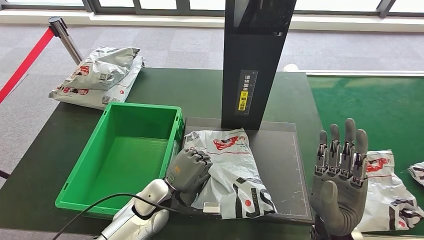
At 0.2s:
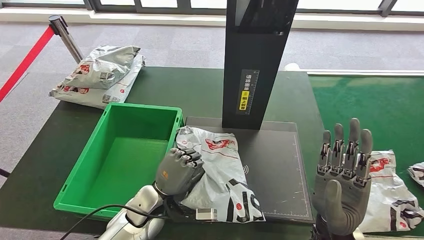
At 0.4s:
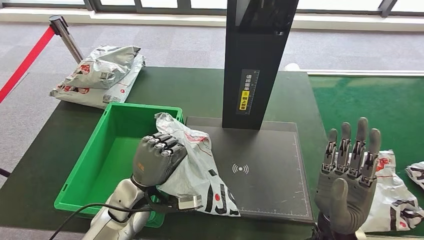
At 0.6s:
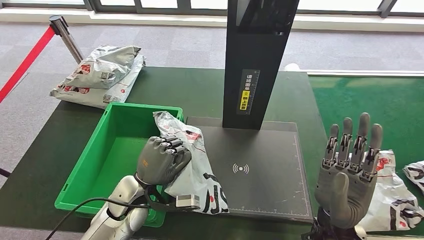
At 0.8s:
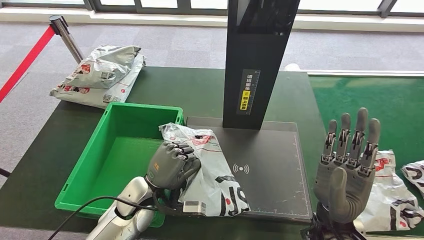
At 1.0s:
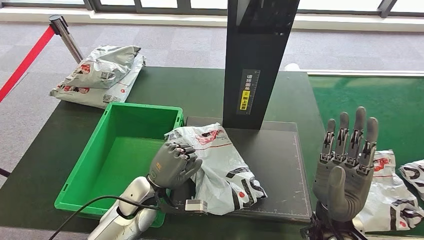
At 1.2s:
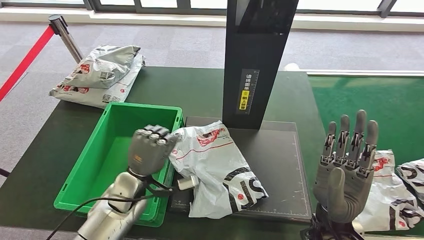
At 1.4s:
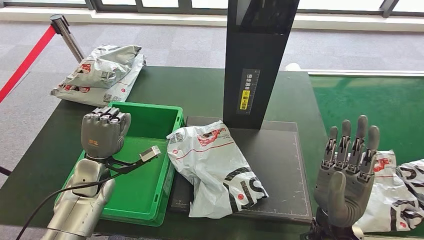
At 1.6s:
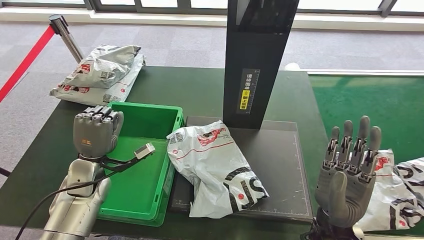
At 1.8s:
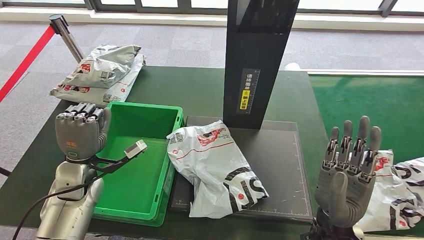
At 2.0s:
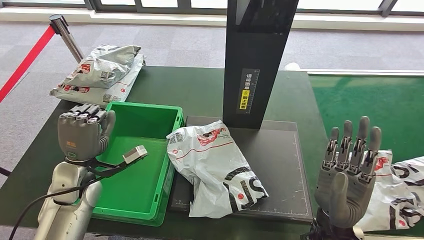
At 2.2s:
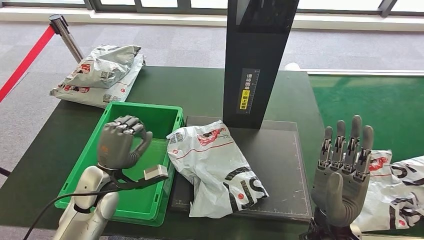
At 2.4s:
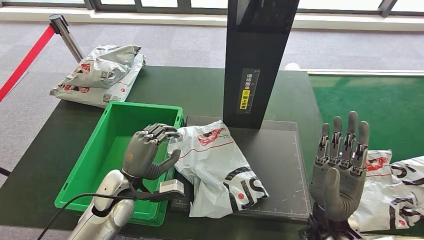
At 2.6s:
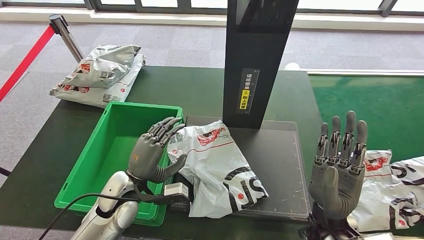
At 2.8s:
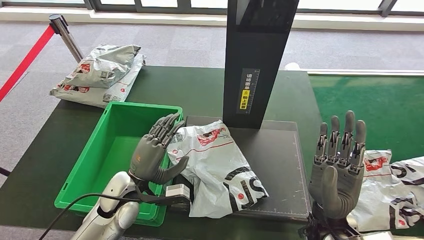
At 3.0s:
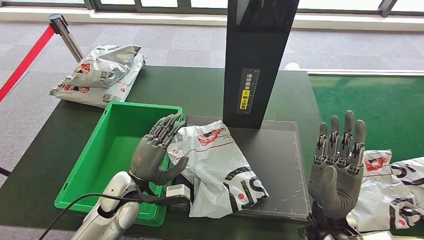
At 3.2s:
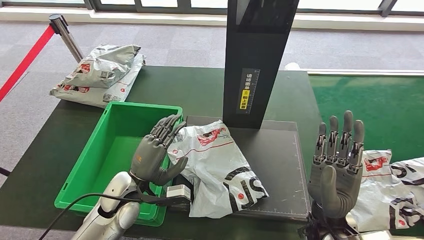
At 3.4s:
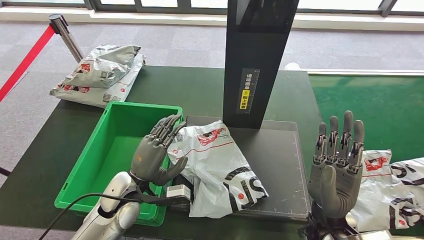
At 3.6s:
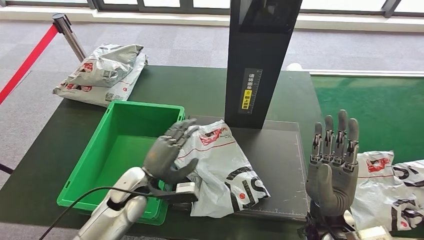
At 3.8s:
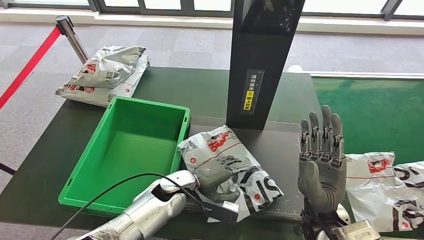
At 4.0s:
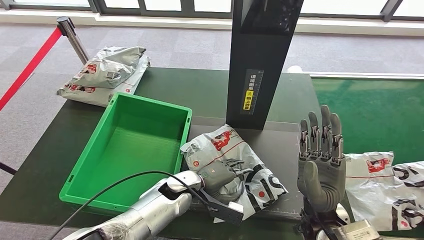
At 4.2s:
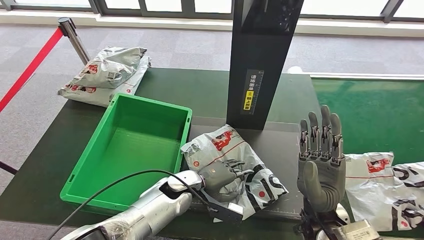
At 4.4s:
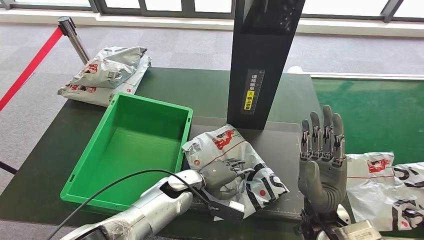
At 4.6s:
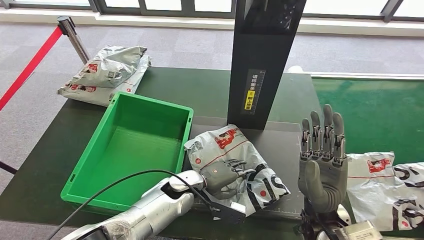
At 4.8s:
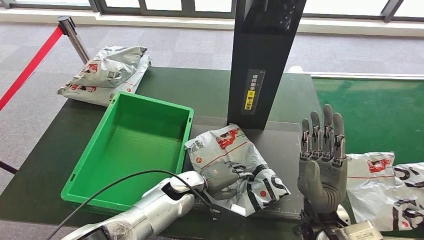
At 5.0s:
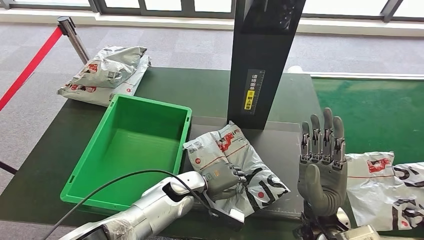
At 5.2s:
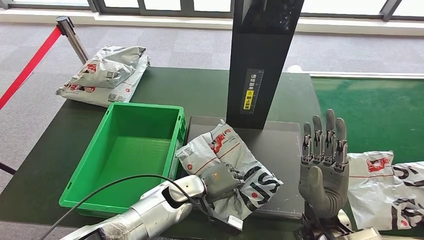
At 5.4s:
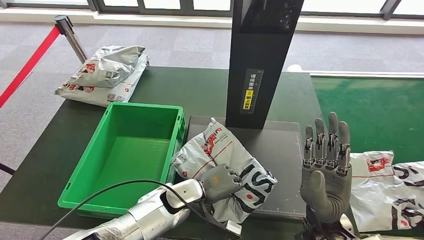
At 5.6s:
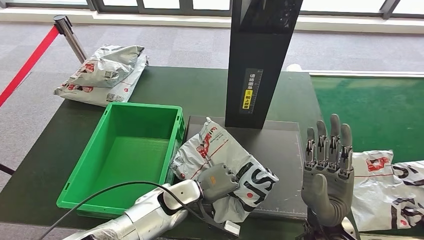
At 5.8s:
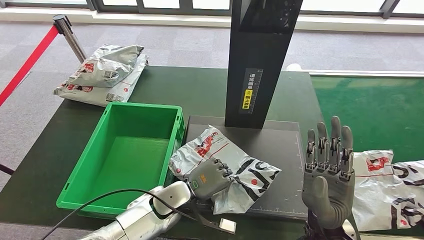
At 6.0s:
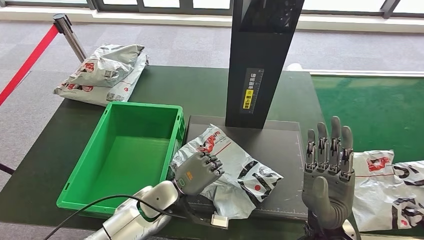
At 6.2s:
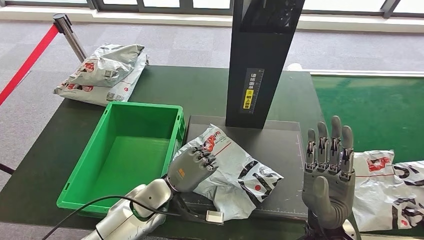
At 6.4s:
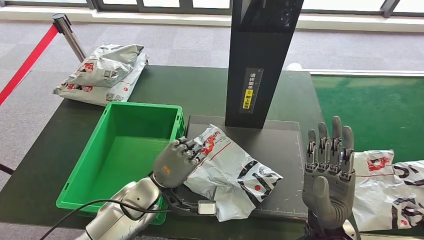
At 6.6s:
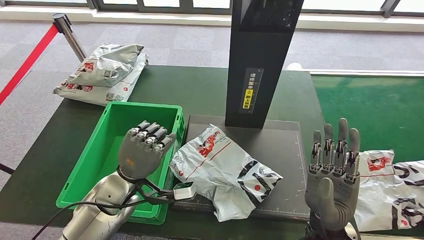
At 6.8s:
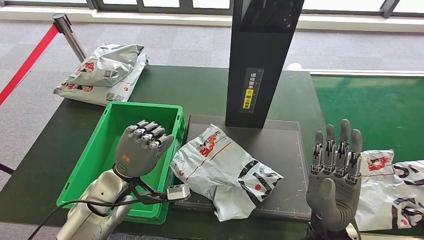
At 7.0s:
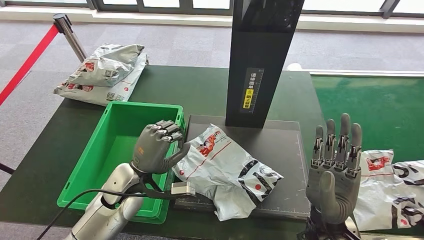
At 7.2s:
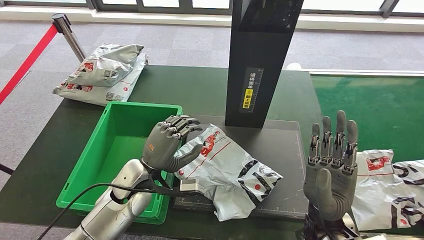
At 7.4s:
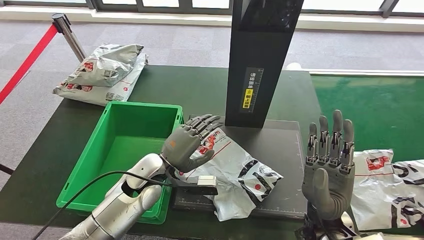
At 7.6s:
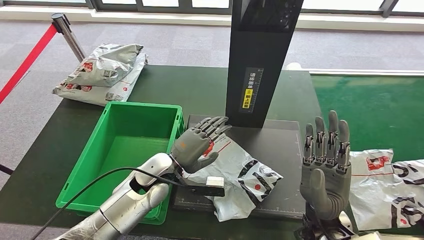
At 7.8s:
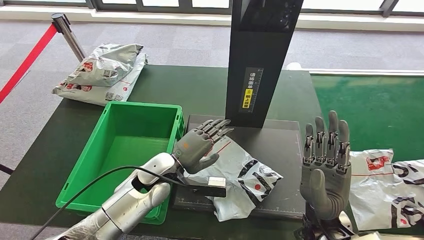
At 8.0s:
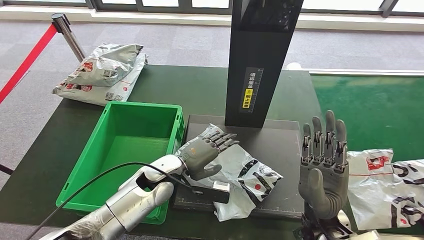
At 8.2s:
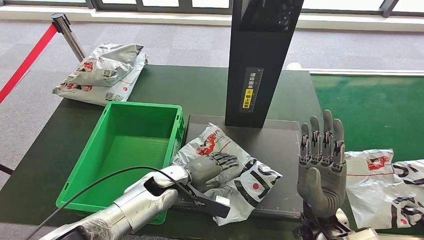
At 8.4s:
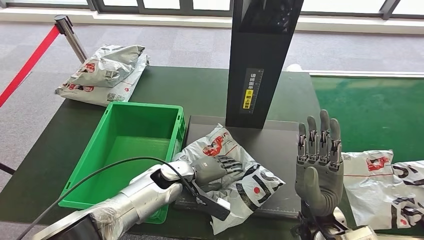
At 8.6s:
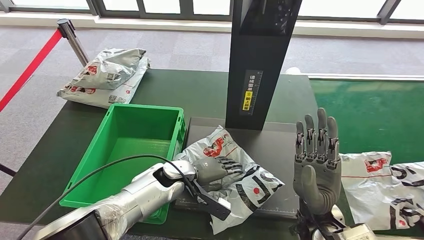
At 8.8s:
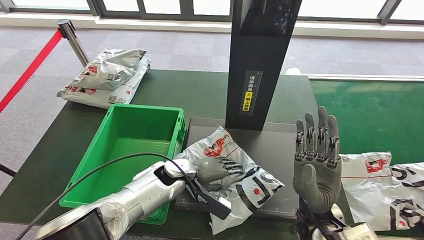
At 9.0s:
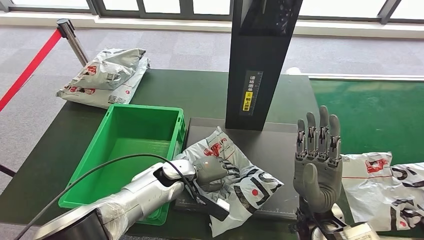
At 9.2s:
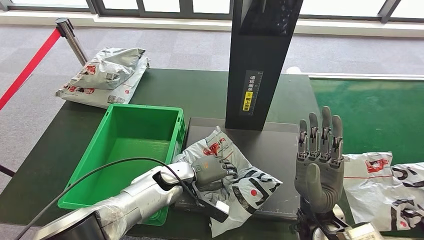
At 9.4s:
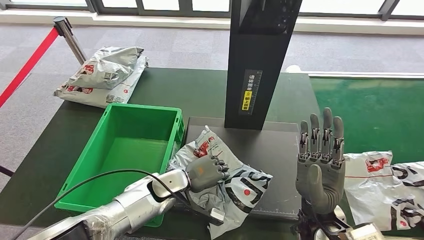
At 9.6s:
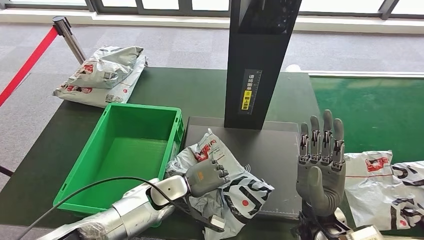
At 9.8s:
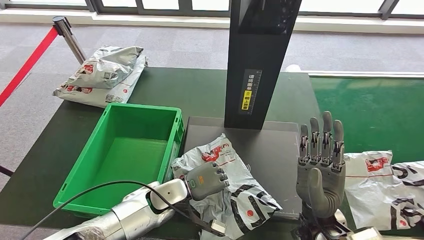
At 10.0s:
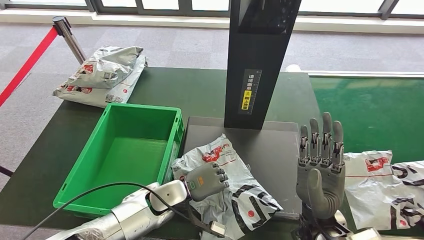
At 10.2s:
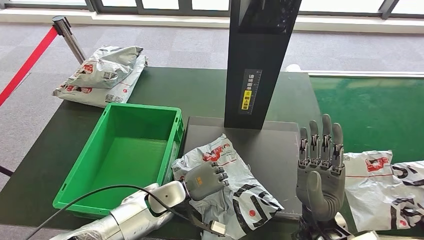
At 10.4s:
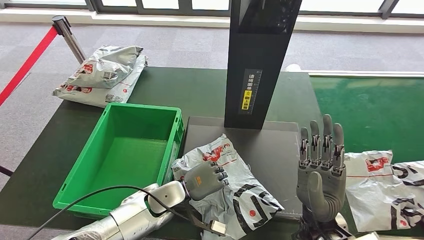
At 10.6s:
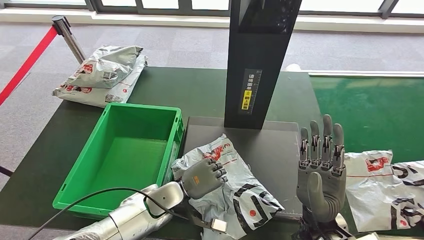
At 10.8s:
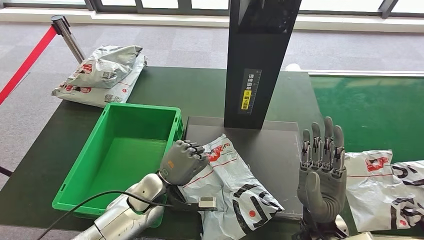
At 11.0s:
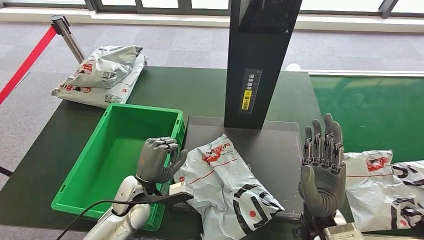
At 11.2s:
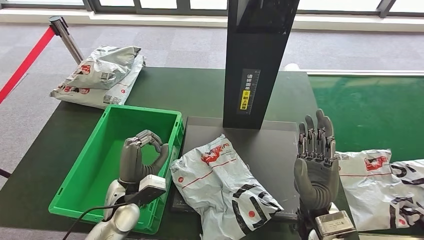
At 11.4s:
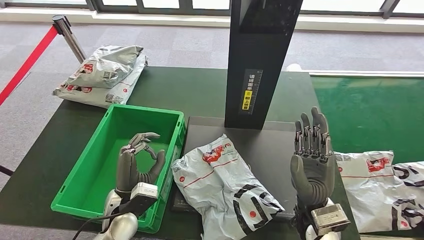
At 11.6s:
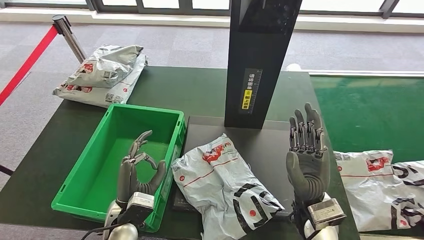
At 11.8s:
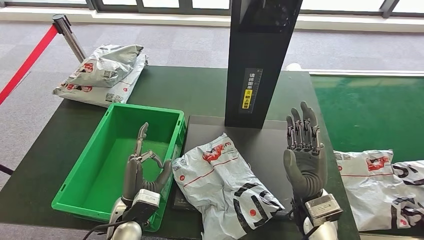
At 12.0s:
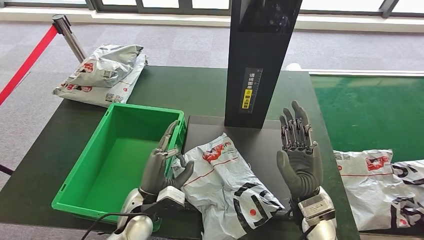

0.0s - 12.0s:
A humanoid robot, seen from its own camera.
1.6s - 3.0s: The left hand heads to the right, covering some 10 cm.
6.0s - 7.6s: The left hand travels to the left and back again, approximately 10 cm each way.

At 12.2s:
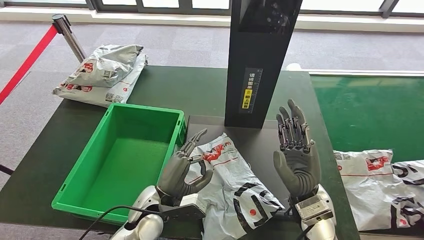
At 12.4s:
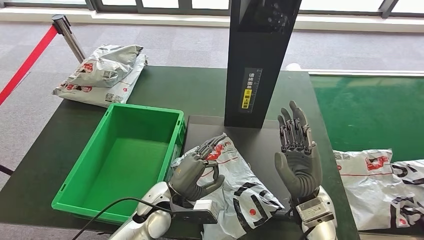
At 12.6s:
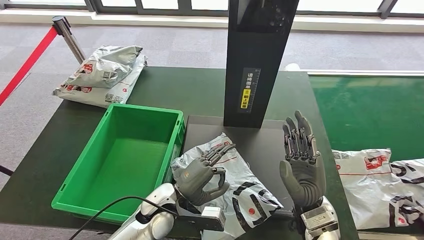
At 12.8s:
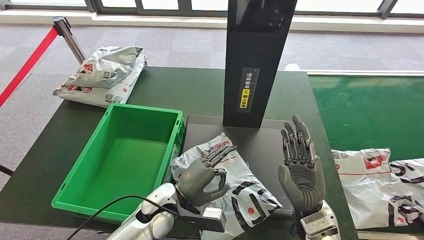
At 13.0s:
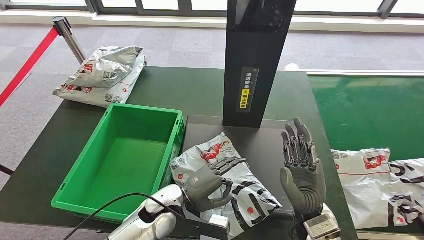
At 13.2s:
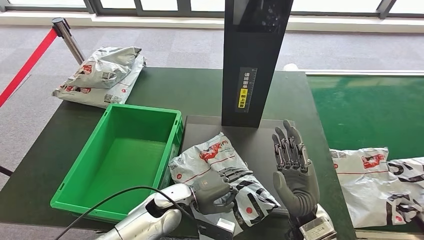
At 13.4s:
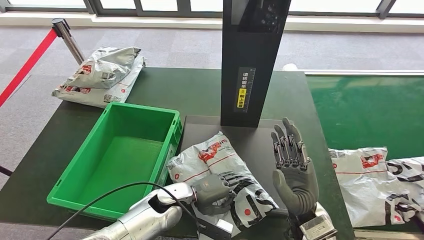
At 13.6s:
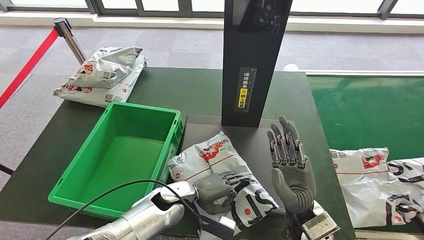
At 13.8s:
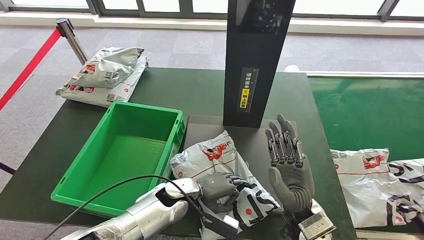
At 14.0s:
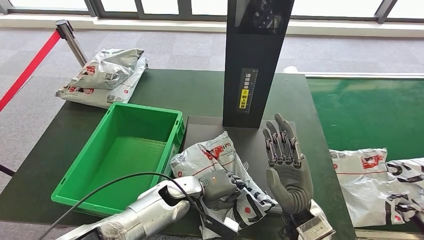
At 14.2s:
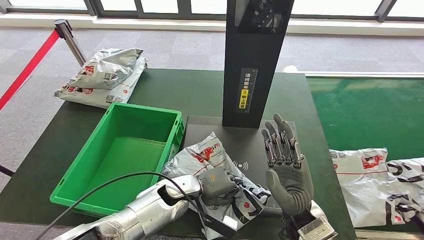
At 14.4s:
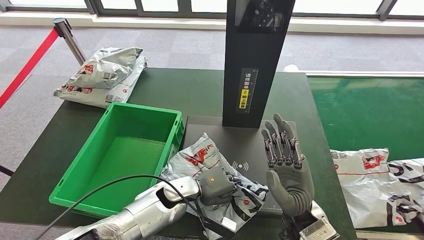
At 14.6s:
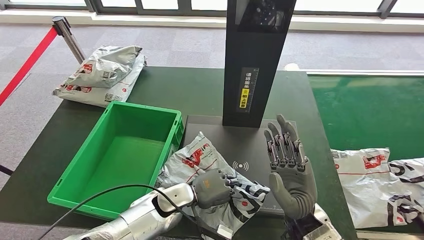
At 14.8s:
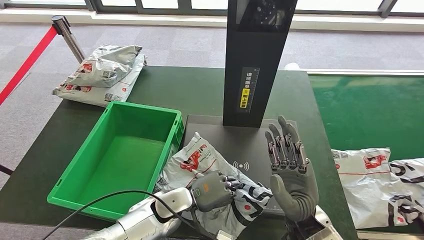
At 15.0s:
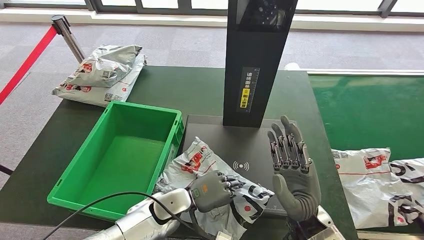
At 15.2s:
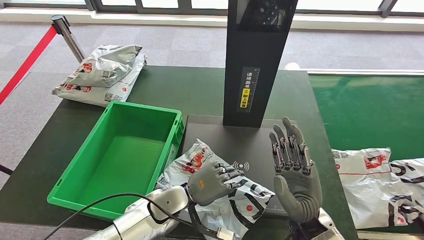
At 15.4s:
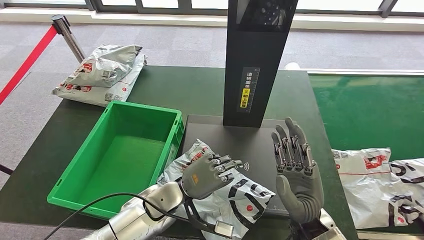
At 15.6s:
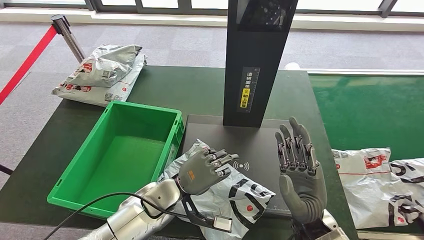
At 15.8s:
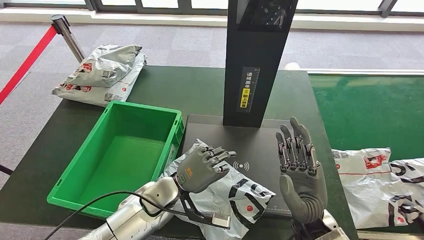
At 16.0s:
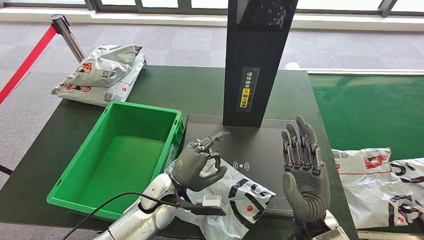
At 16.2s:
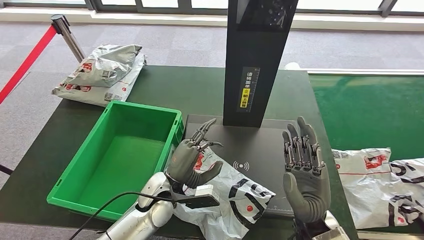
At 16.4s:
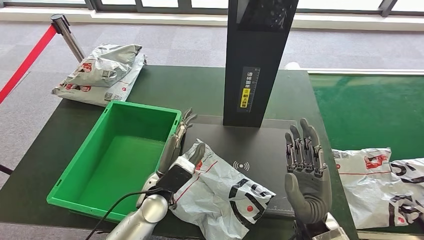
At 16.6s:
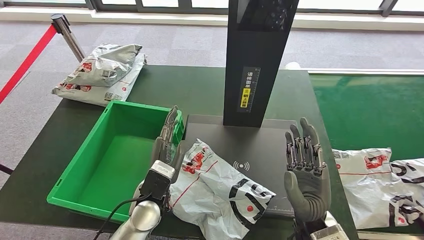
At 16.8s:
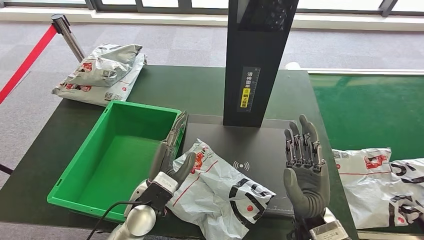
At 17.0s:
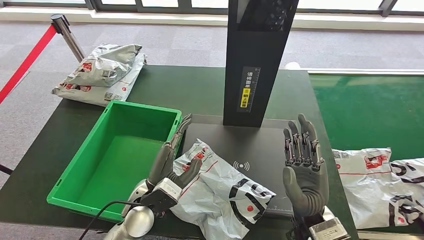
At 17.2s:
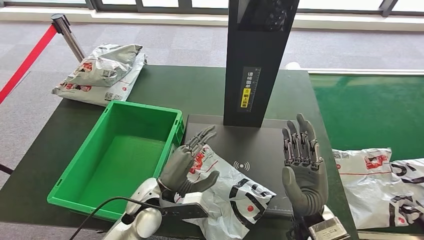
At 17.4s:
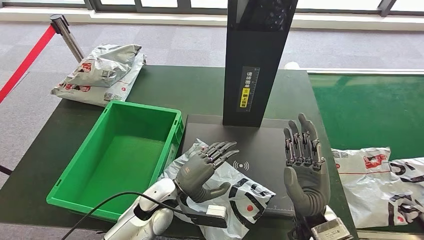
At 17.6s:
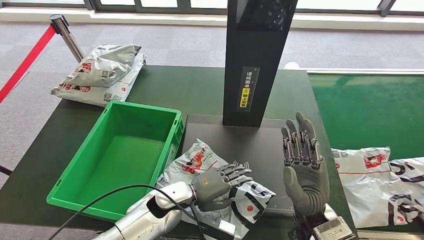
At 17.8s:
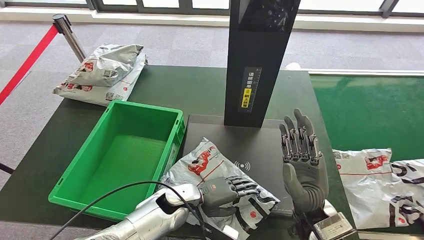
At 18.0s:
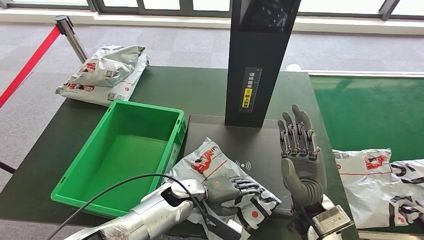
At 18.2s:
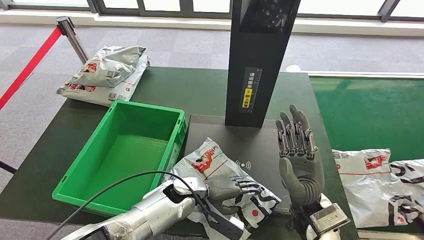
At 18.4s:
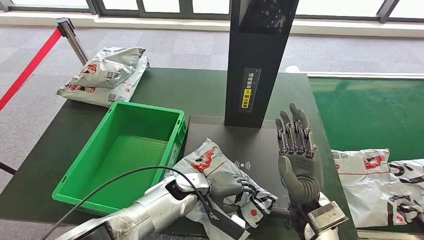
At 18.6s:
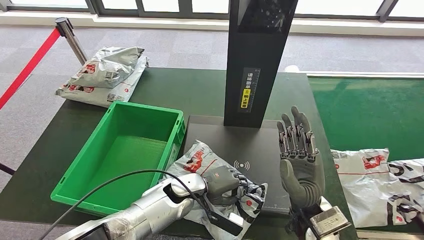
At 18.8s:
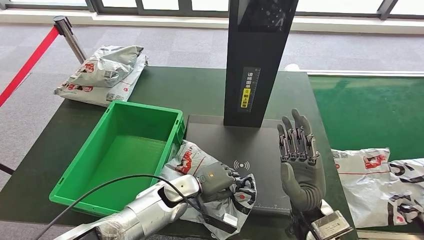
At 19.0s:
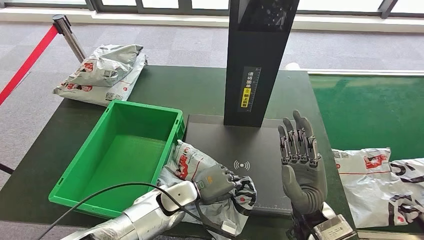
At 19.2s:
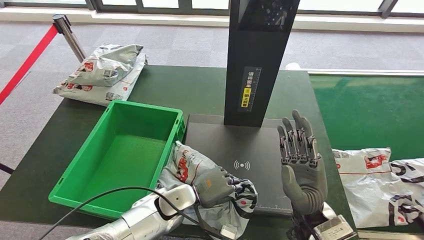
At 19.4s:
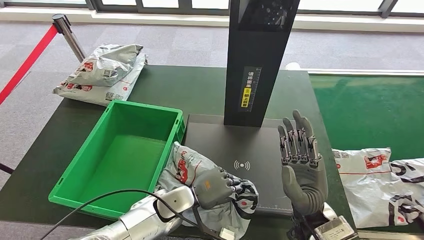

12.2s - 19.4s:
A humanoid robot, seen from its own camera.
15.0s - 16.6s: The left hand is displaced upward by some 5 cm.
